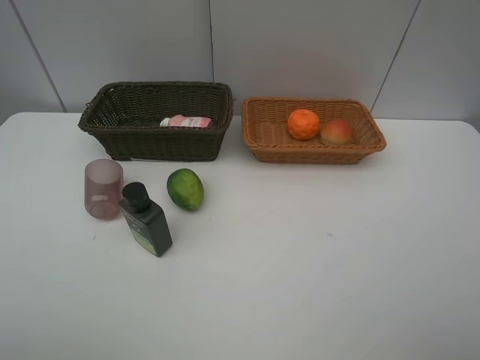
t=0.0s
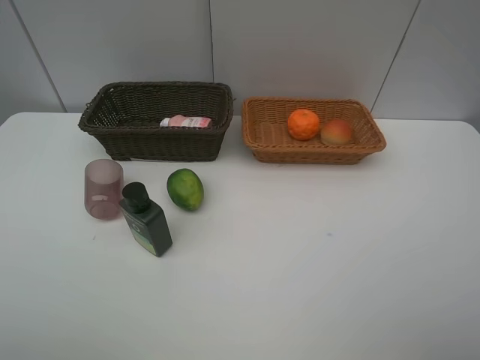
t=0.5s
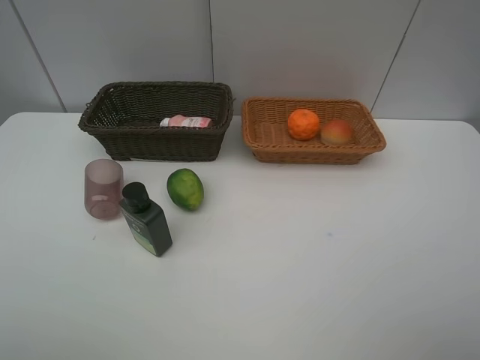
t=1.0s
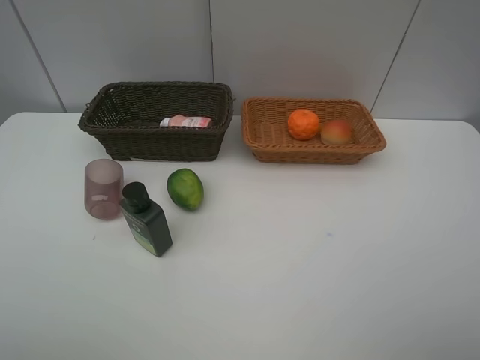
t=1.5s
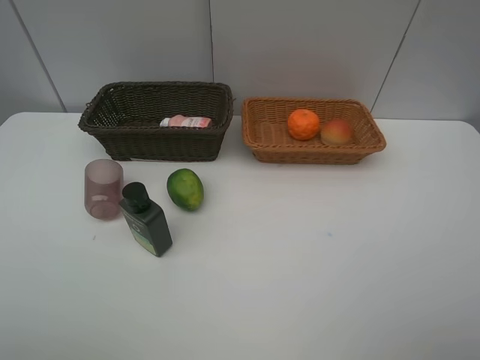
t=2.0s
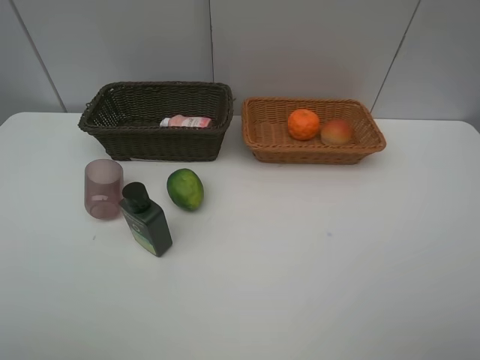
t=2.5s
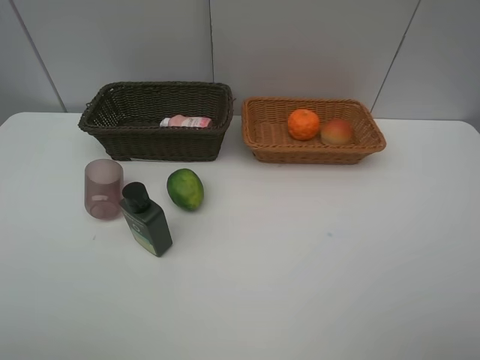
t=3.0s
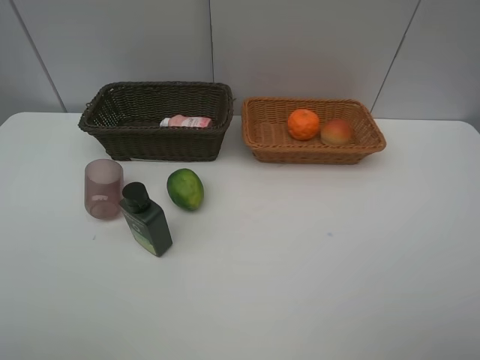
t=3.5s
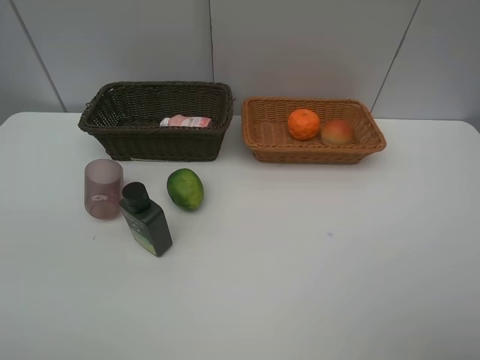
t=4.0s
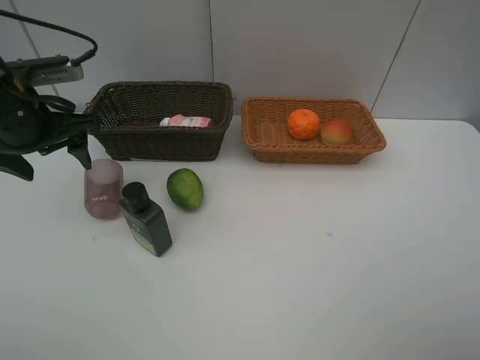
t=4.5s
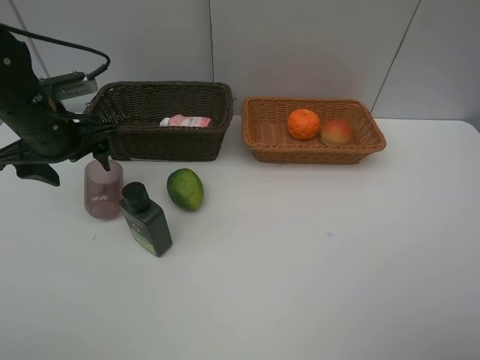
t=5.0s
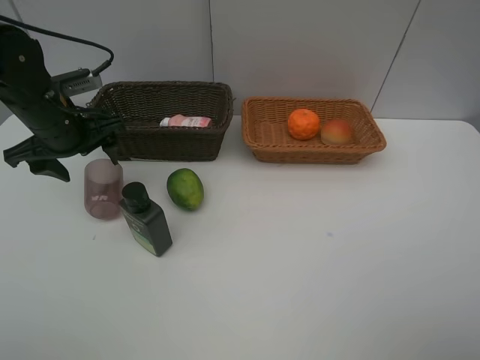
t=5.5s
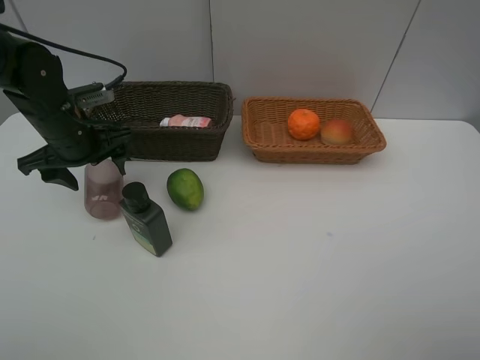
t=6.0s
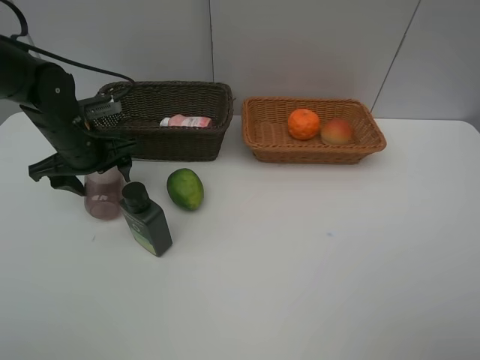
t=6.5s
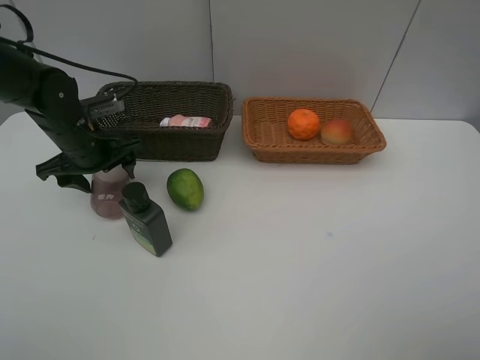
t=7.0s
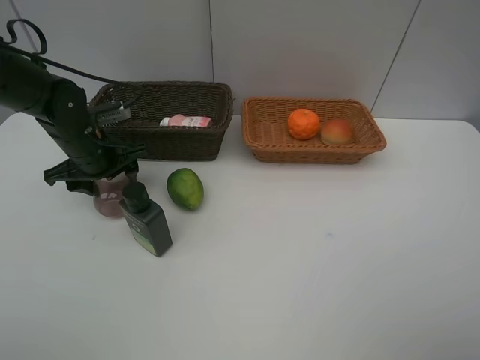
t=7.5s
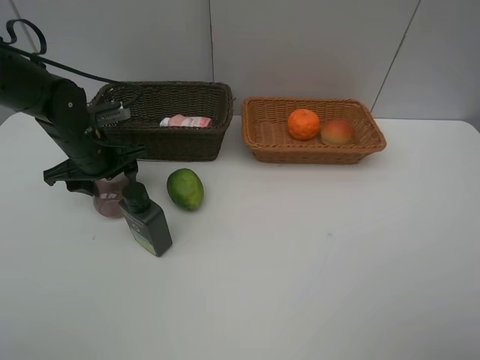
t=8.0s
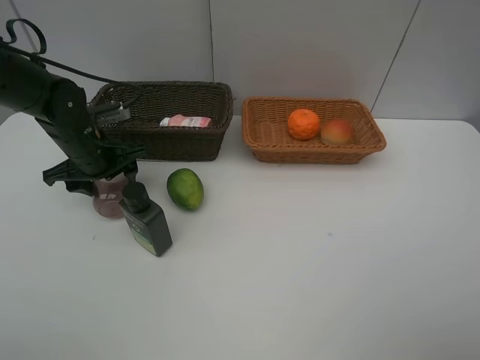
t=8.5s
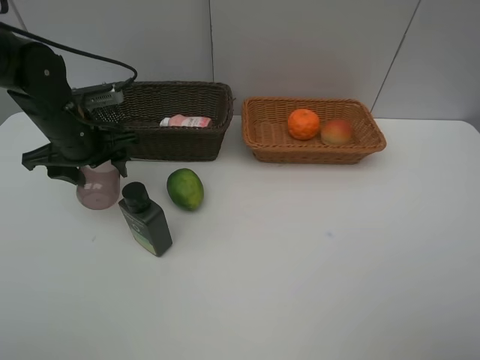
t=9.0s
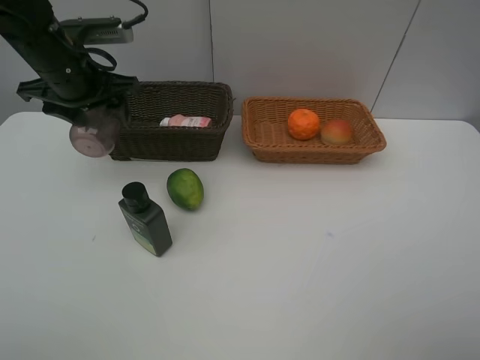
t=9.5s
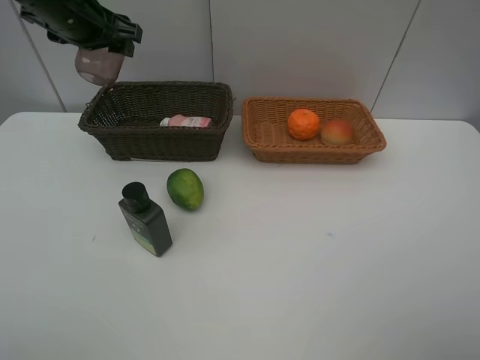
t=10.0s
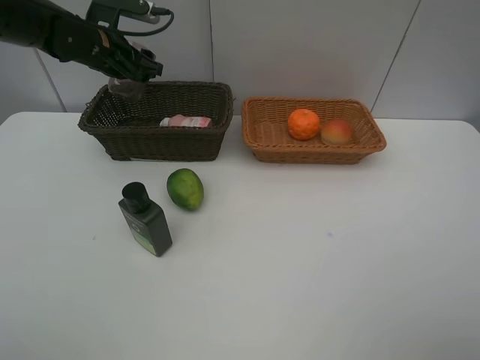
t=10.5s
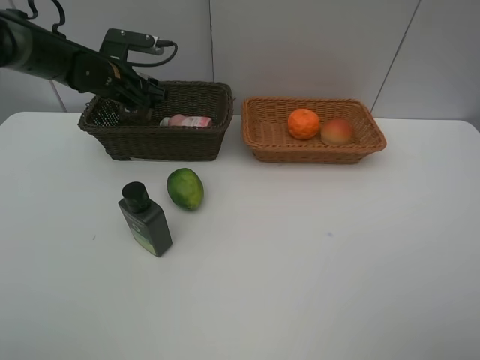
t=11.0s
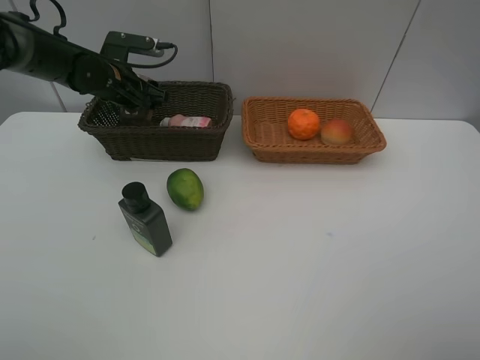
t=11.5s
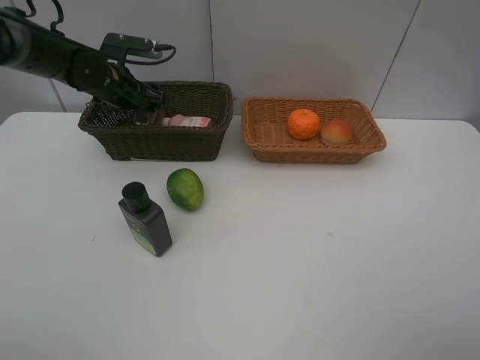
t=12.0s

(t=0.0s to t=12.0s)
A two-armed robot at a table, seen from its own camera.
Task of the whole recording: place multiple objects separately in different baskets.
t=4.0s - t=6.0s: The left gripper travels downward, forward and to the right by about 25 cm.
t=6.0s - t=8.0s: The grippers move only a little.
t=8.0s - t=10.0s: The left gripper travels upward by some 15 cm.
t=10.0s - t=12.0s: The left gripper is displaced downward by about 15 cm.

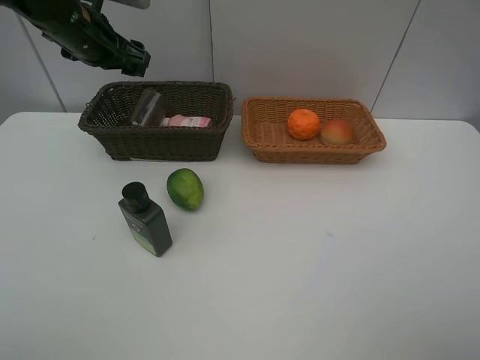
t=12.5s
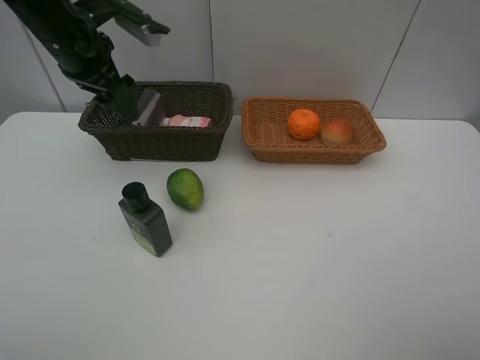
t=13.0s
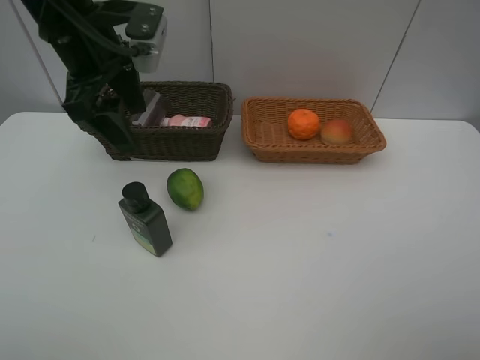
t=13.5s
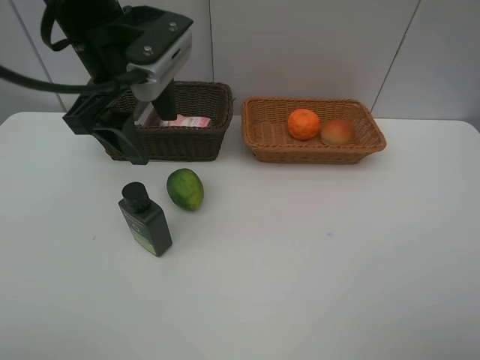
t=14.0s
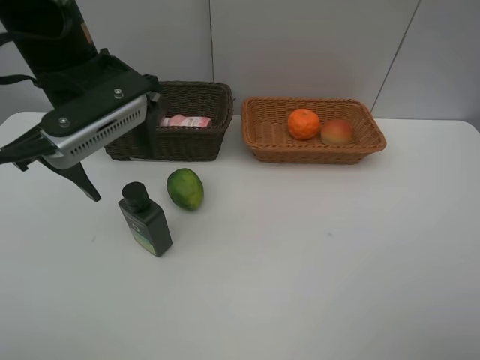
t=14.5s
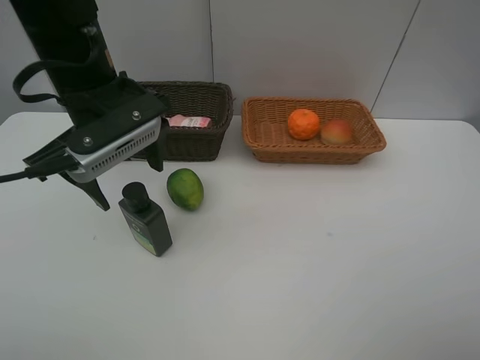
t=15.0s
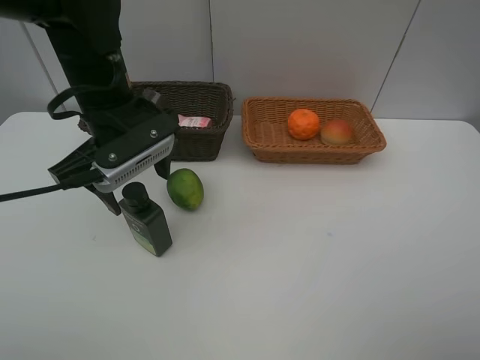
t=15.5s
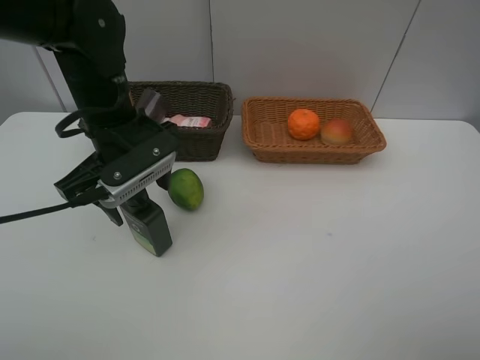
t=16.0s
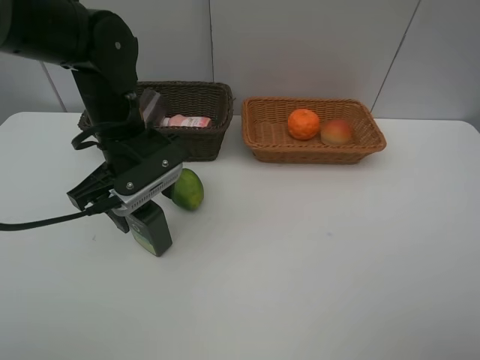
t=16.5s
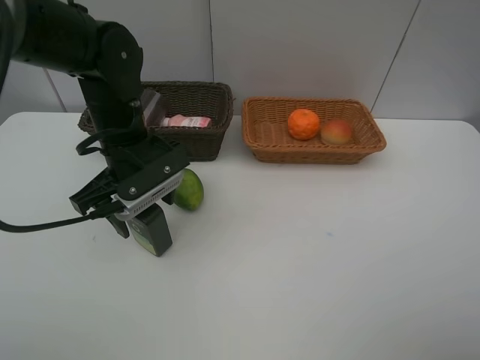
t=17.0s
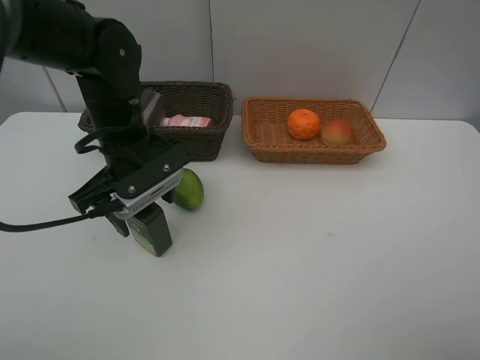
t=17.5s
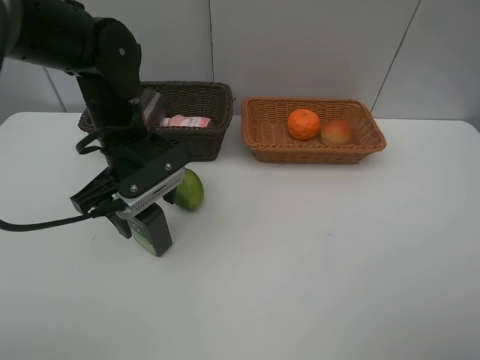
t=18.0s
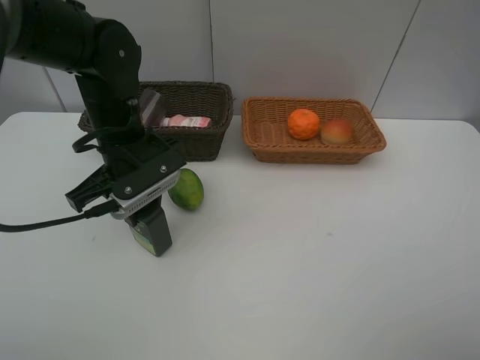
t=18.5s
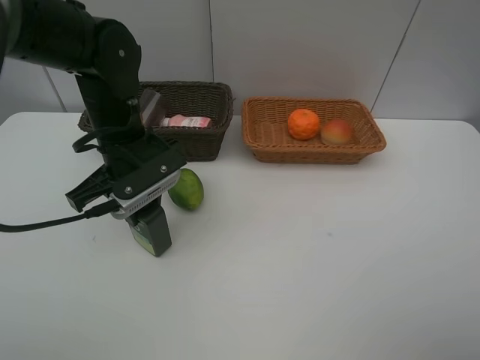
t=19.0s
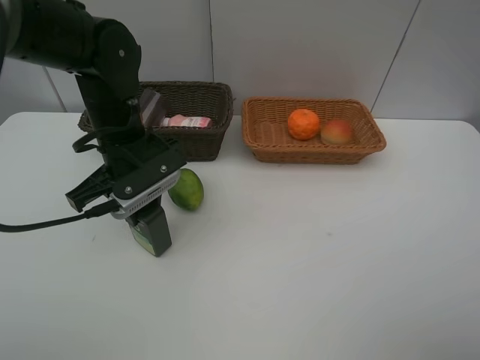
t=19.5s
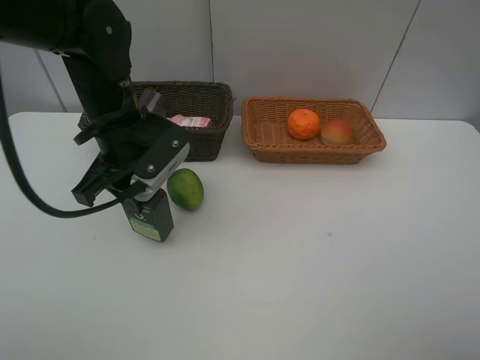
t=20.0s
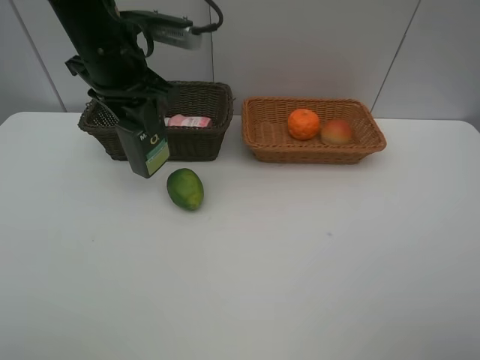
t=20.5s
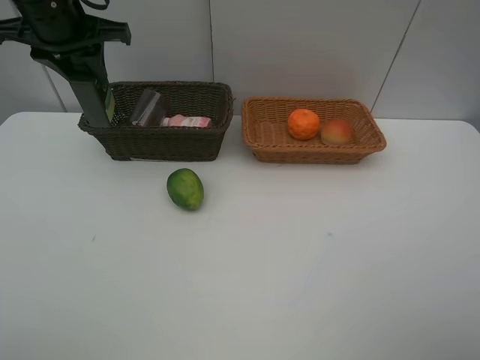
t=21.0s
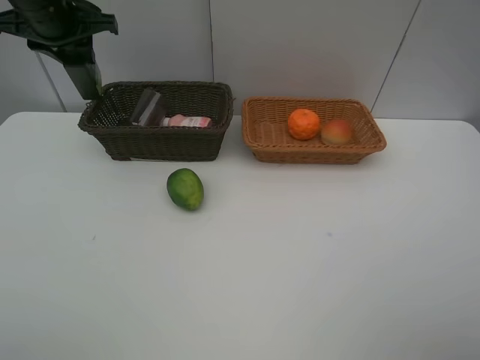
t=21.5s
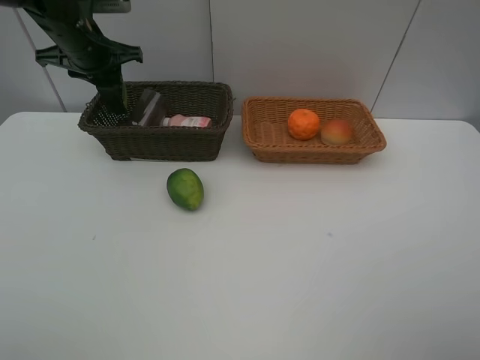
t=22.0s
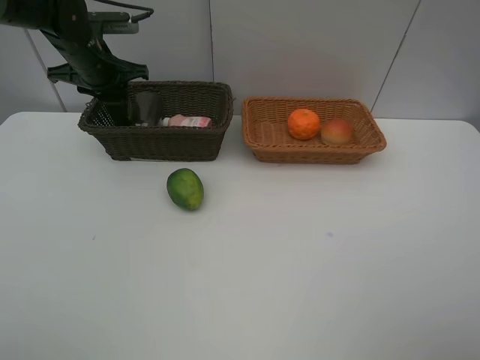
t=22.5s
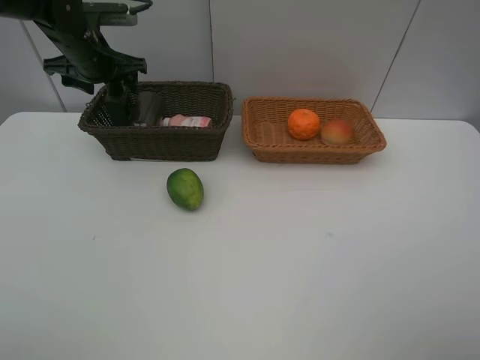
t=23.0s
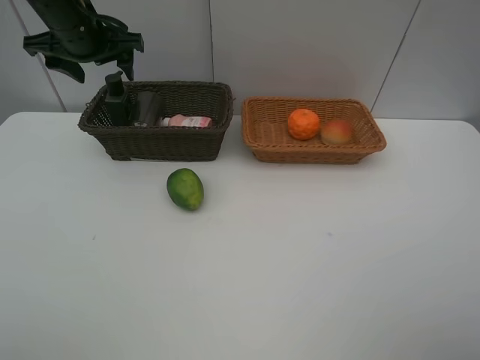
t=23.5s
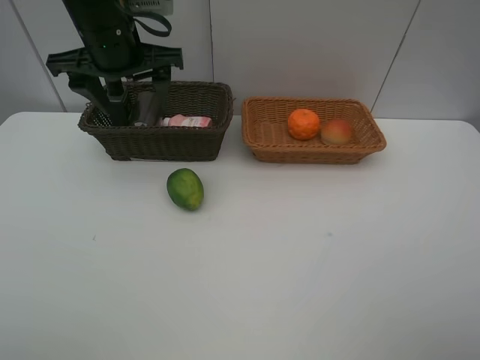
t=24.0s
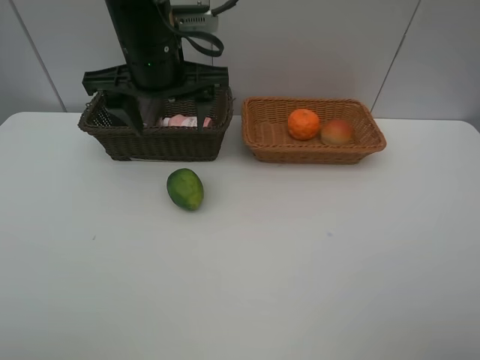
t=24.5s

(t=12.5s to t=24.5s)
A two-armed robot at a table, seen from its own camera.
Task of the whole recording: place multiple objects separately in different baskets.
t=12.5s - t=14.5s: The left gripper goes some 15 cm backward and to the right.
t=14.5s - t=16.5s: The left gripper moves downward, some 10 cm.
t=16.5s - t=18.5s: The left gripper closes its fingers.
t=18.5s - t=20.5s: The left gripper heads upward, covering about 10 cm.
t=20.5s - t=22.5s: The left gripper travels forward, to the left and downward by approximately 15 cm.
t=22.5s - t=24.5s: The left gripper travels to the right, backward and upward by roughly 20 cm, and opens its fingers.

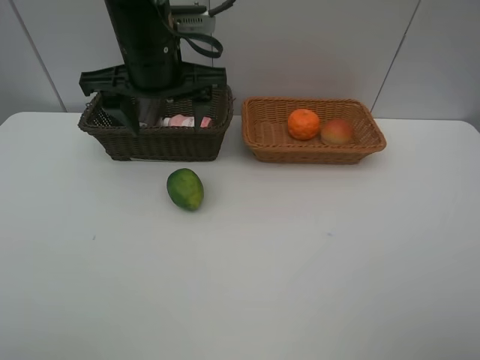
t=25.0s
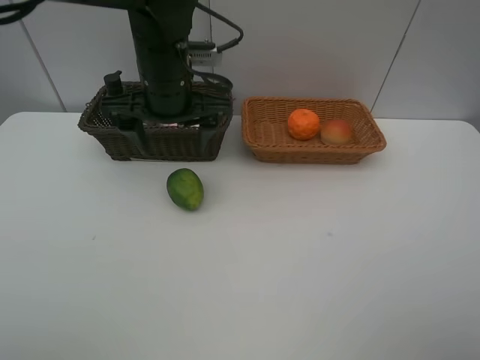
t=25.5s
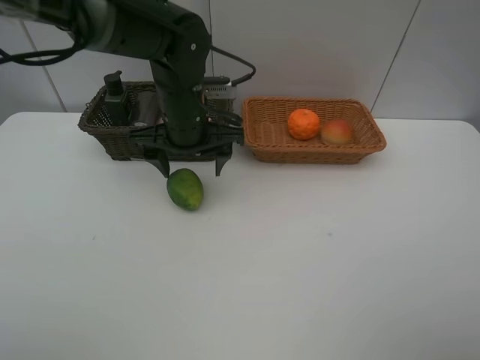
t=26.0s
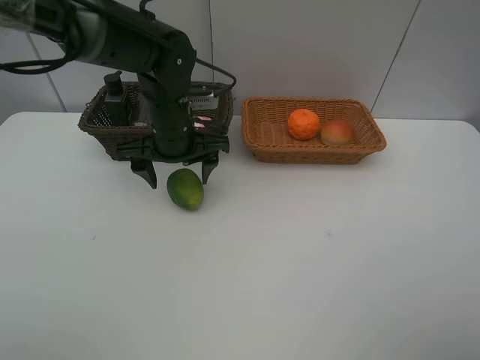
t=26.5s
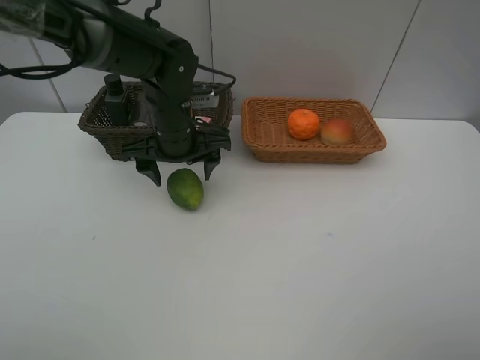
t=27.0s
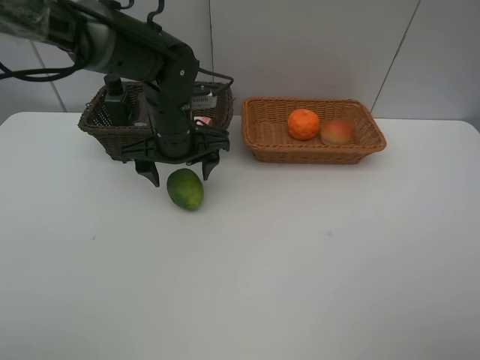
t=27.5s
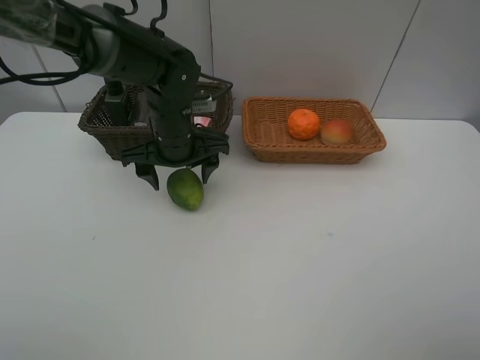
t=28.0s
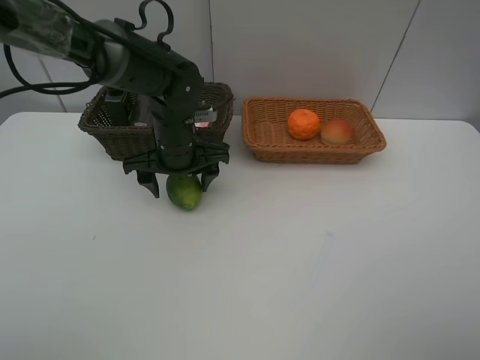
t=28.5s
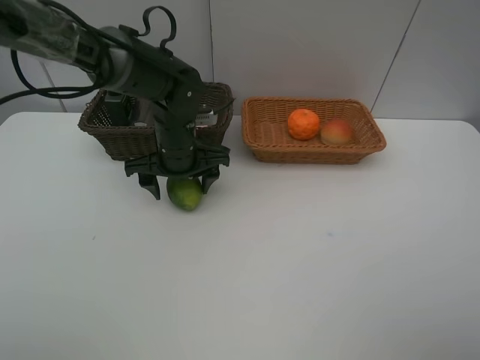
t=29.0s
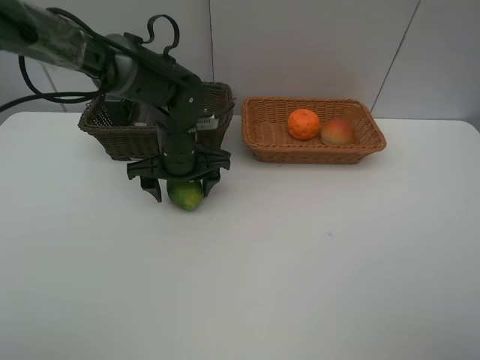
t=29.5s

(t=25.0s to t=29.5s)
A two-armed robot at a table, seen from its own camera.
Task of the whole recording: place multiple objects separately in different baskets.
t=25.0s - t=27.0s: The left gripper travels downward by roughly 10 cm.
t=27.0s - t=29.5s: There are only small adjustments of the grippers.
